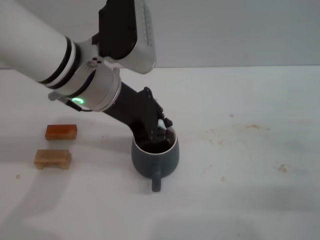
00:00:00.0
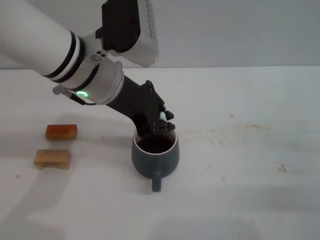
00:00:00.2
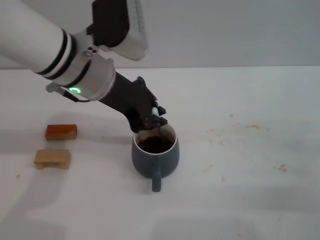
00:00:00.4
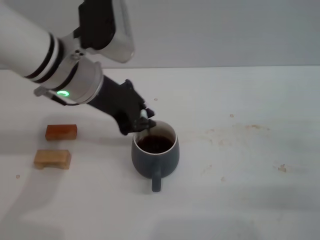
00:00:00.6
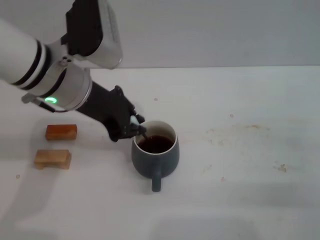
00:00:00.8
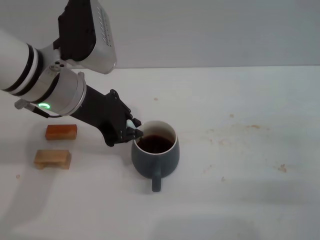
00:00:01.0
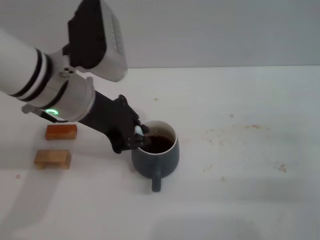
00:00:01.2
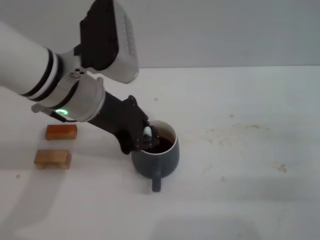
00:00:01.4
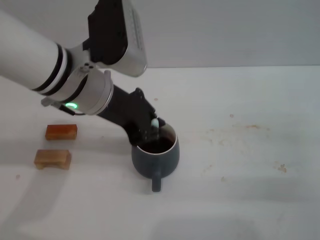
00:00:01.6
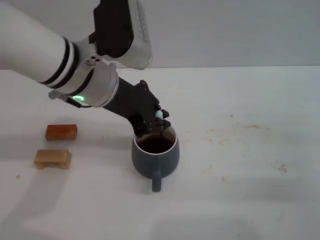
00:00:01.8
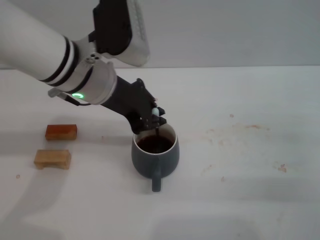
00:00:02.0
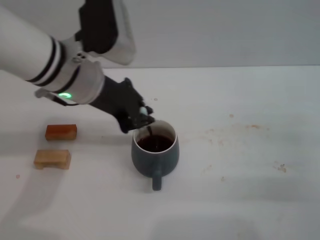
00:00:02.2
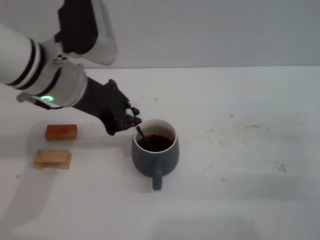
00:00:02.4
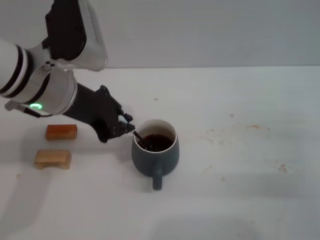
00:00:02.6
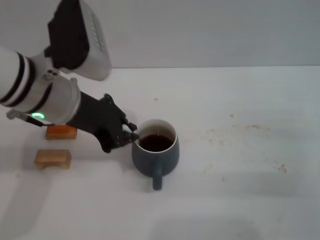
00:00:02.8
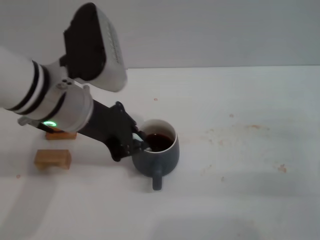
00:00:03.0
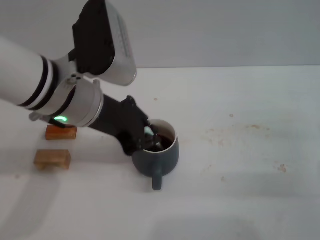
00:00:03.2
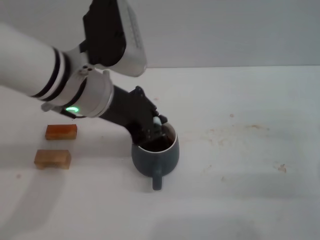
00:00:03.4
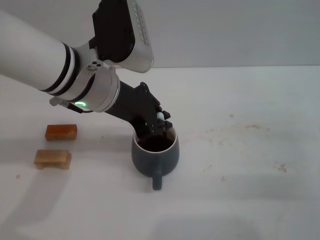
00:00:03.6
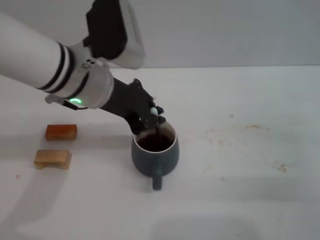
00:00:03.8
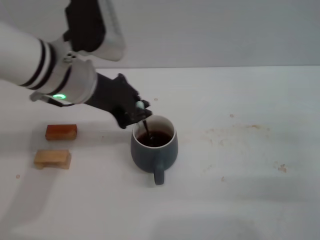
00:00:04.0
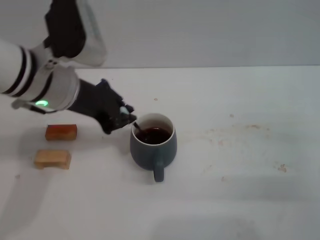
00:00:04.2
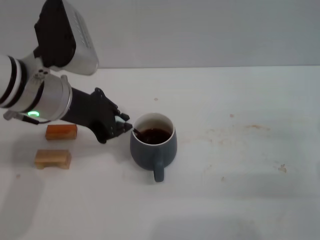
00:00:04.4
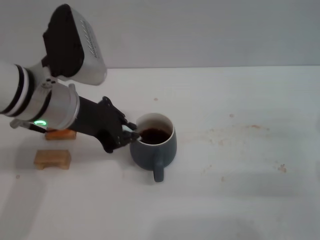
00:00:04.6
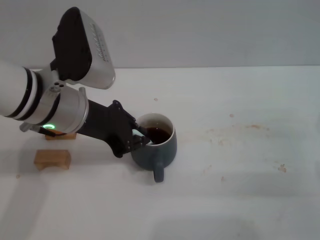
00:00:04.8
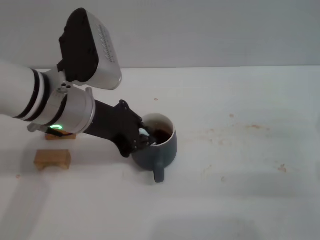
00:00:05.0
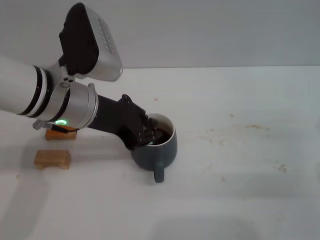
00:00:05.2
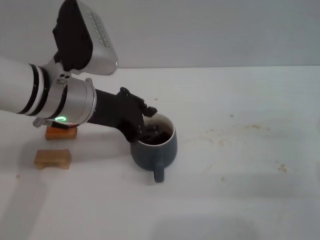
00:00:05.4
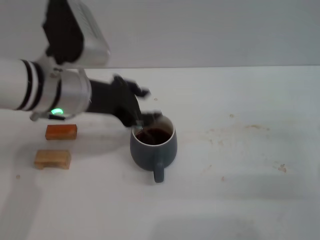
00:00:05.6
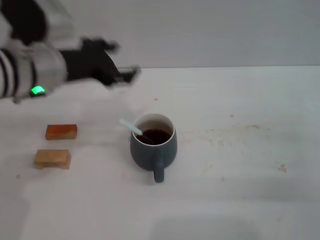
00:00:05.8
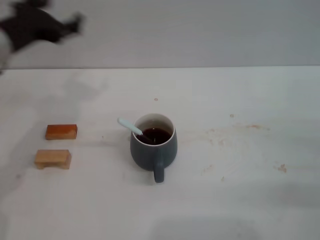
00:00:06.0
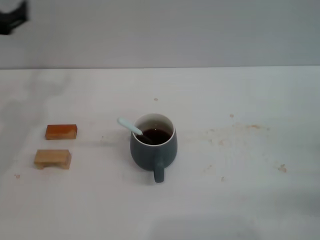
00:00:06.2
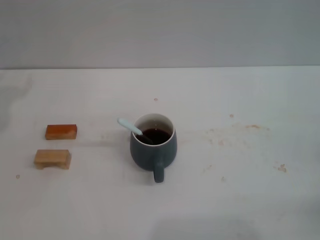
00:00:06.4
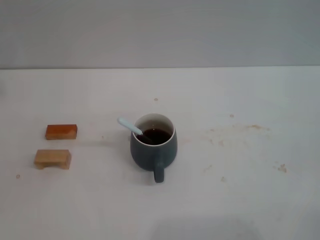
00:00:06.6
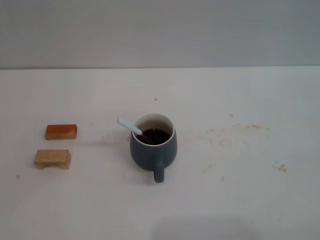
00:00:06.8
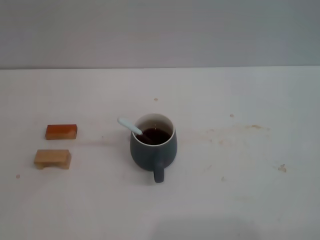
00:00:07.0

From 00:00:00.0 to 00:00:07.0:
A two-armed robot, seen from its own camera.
Task of the whole recording: Move the grey cup to the center, lift the blue spoon, stir it three times in the cup, and put the spoon into the cup.
Step, from 00:00:00.0 to 00:00:05.6: Stir the coffee in the cup with the left gripper.
From 00:00:00.0 to 00:00:04.2: The grippers make only small movements.
From 00:00:04.2 to 00:00:05.6: There are only small adjustments of the grippers.
From 00:00:05.6 to 00:00:07.0: The right gripper moves to the right, backward and downward, about 15 cm, while the left gripper shifts about 25 cm to the left, and opens up.
